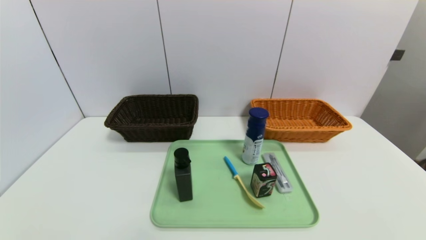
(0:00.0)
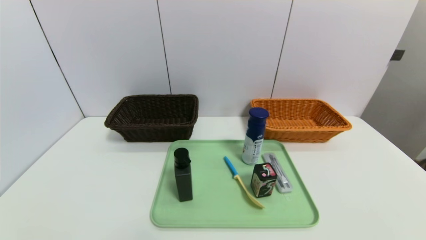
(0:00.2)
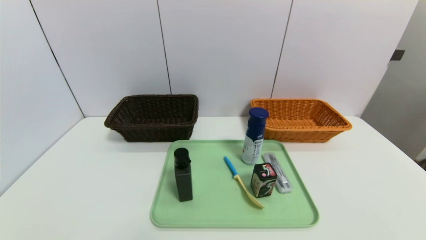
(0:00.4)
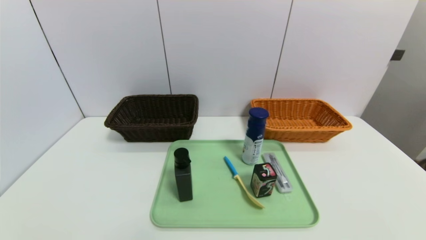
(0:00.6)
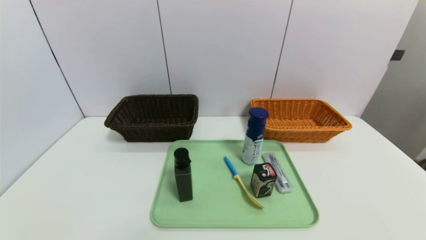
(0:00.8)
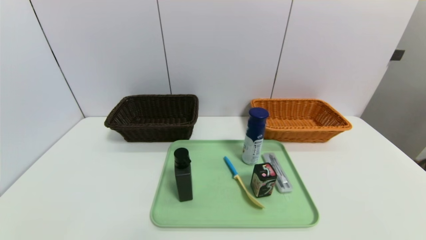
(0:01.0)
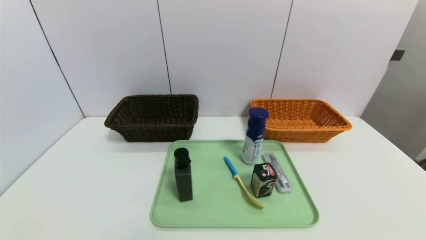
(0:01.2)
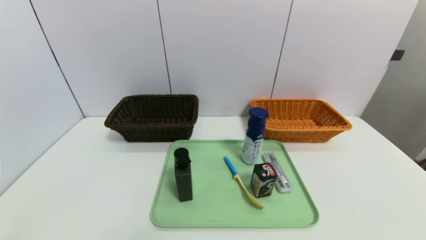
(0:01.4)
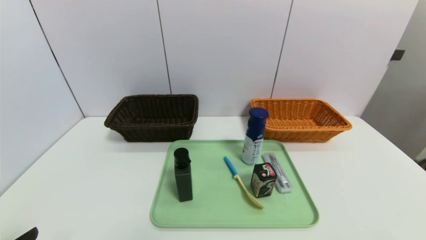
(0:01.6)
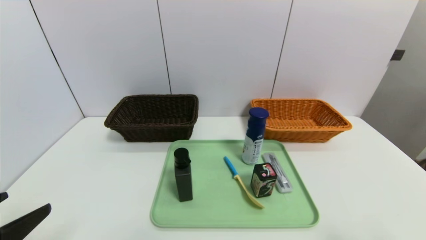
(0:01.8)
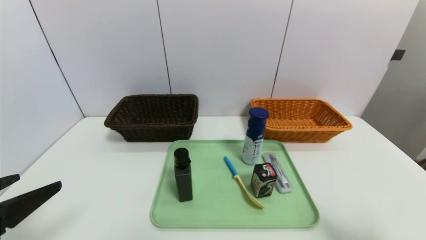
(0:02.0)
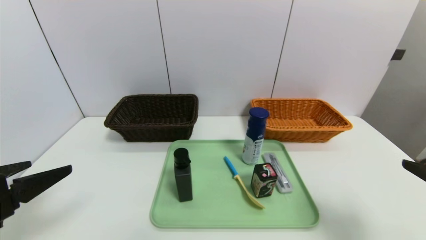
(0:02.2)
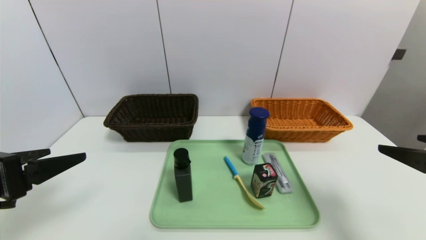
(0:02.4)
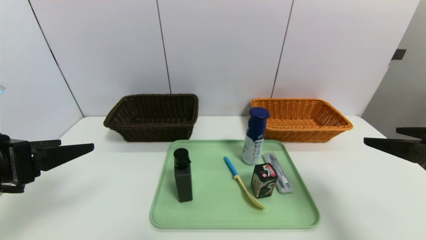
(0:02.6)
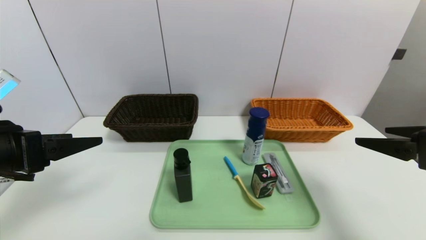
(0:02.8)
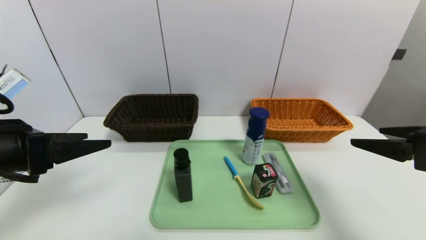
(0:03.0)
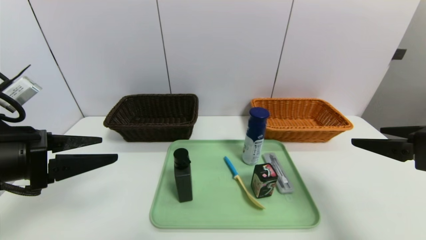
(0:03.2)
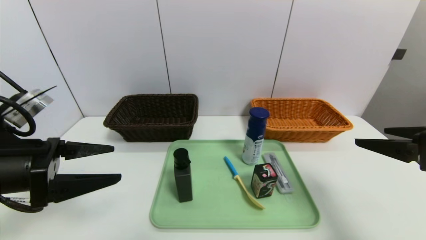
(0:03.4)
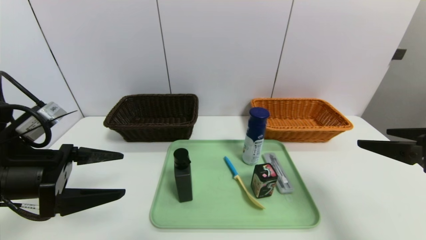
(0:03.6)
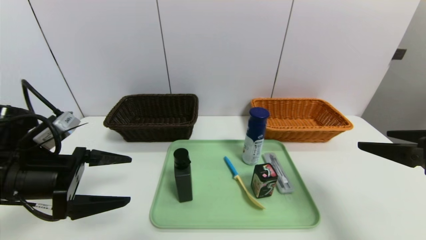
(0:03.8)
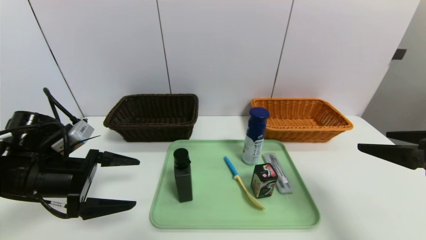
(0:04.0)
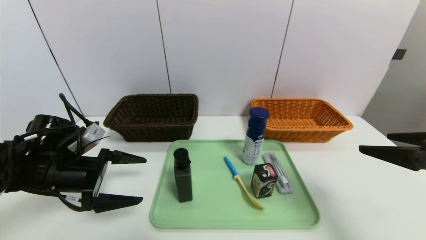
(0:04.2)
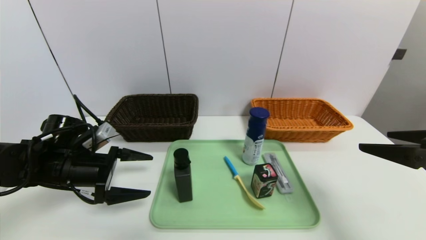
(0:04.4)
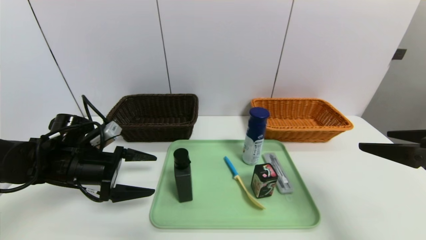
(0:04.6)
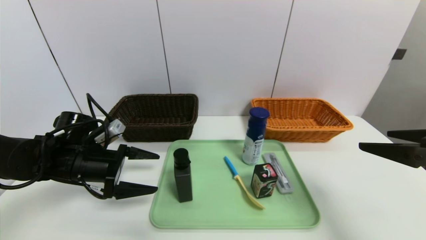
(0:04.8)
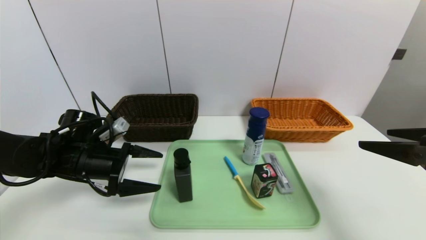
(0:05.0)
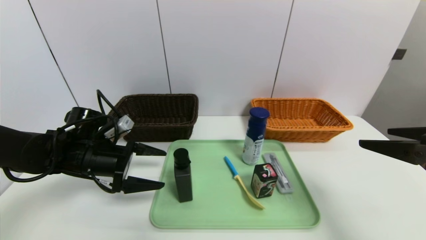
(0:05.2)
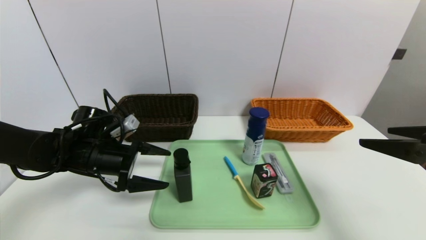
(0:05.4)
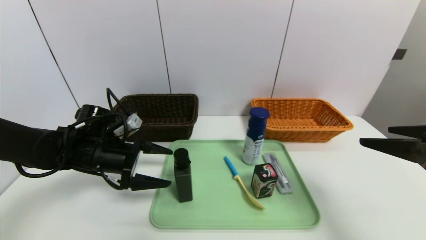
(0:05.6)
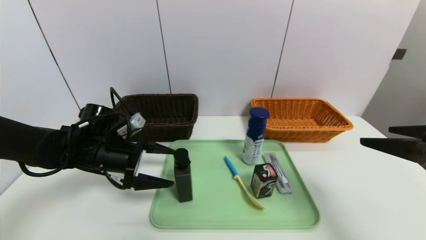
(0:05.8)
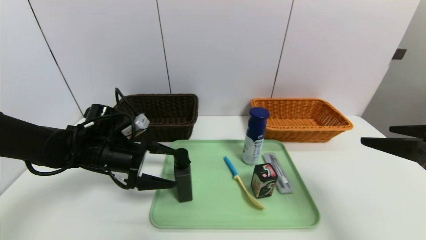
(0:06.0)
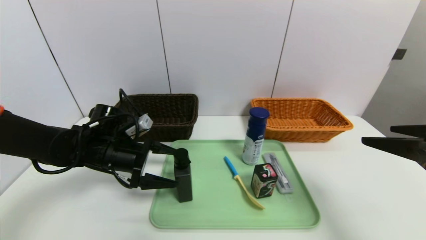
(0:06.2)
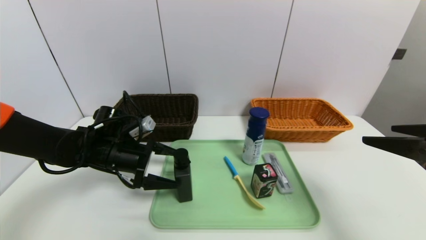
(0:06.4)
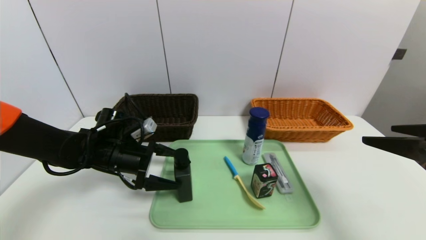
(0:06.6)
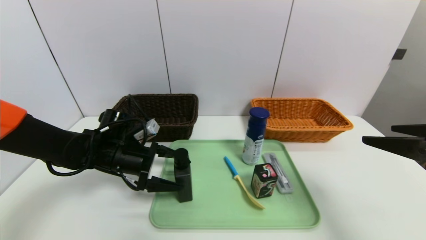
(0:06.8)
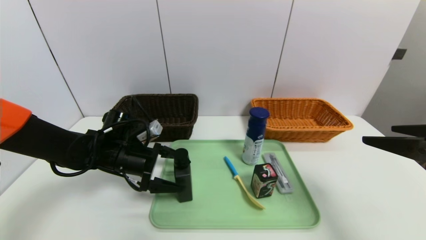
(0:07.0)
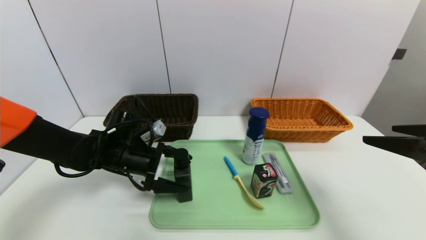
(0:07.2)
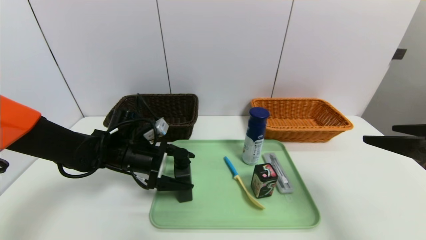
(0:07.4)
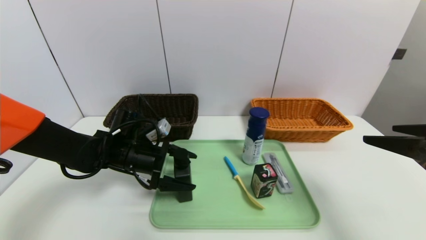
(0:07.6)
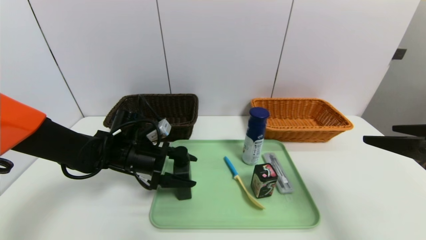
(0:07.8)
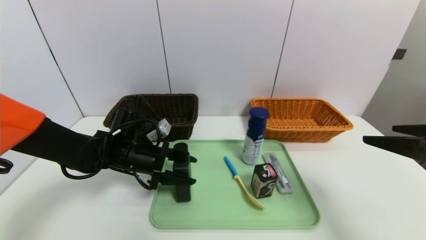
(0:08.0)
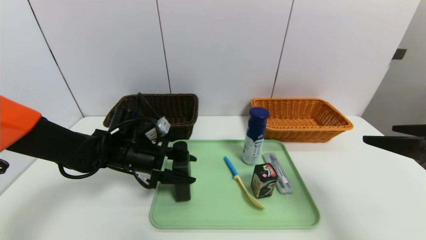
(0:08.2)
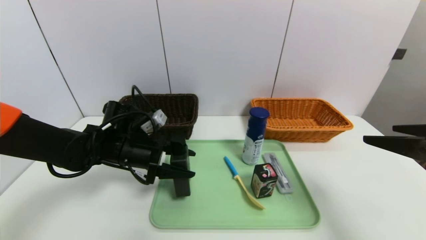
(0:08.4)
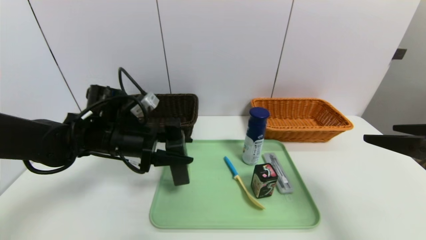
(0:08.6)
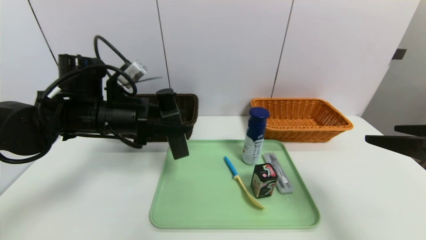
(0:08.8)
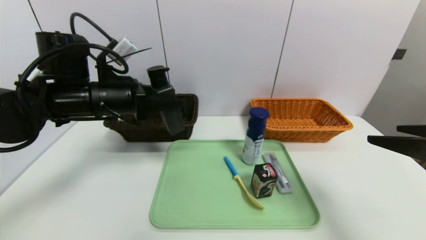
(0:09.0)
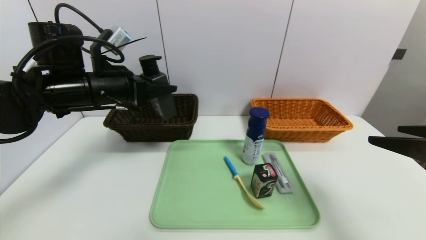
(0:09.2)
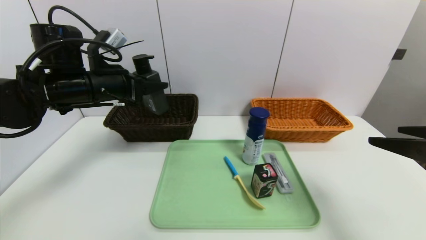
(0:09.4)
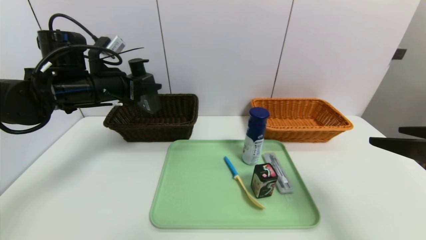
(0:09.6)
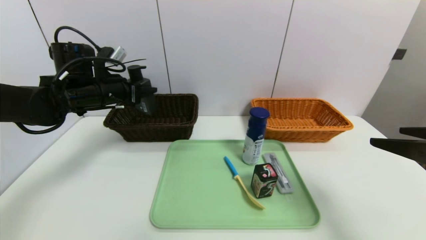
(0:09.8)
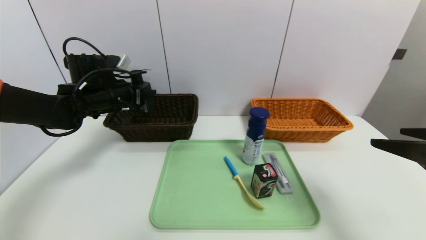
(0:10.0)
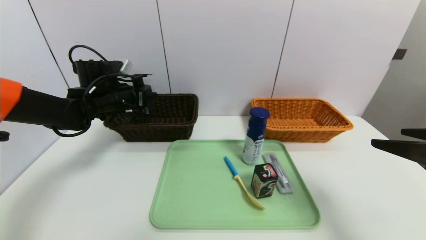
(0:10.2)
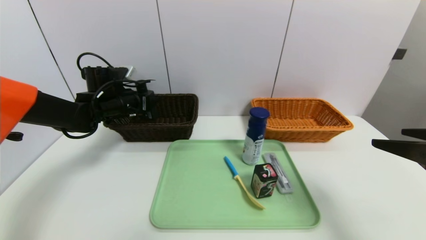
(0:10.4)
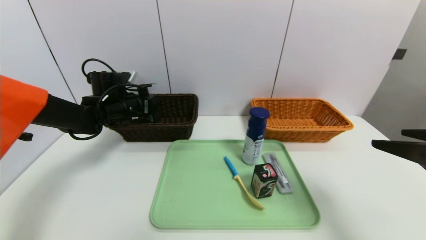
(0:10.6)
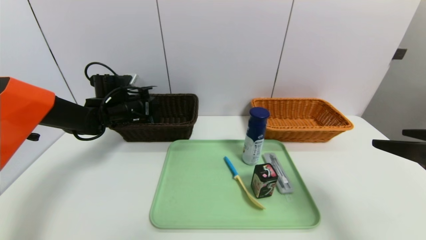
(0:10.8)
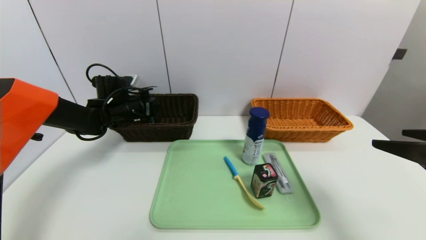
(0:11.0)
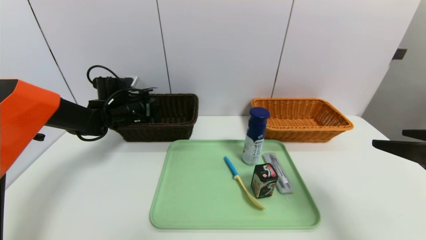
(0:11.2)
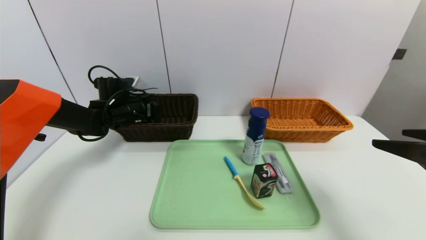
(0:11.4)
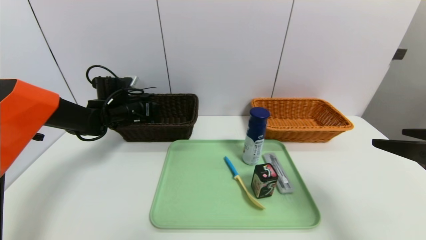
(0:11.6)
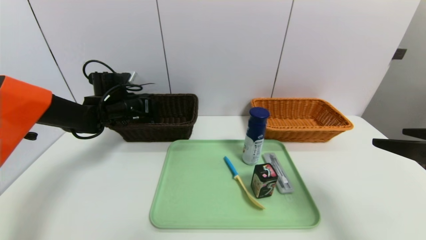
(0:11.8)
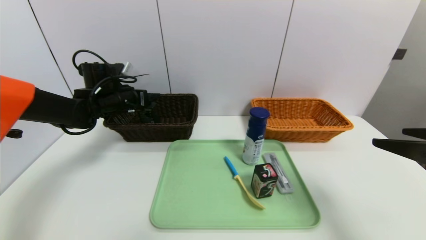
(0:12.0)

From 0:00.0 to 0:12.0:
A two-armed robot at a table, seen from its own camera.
Task of the whole recording: place the food in the right basket with the right gripper, and place the non food items in the left basket with the left gripper.
From 0:01.6 to 0:03.0: The two grippers go approximately 15 cm forward and upward.
From 0:03.0 to 0:04.4: The left gripper moves downward and forward, roughly 15 cm.
From 0:04.4 to 0:06.0: The left gripper is displaced to the right by roughly 5 cm.
From 0:06.0 to 0:07.6: The grippers make only small movements.
From 0:07.6 to 0:09.0: The left gripper is displaced upward by approximately 15 cm, and closes.
From 0:09.0 to 0:10.4: The left gripper travels forward and downward by some 15 cm.
From 0:10.4 to 0:12.0: The grippers move only a little.

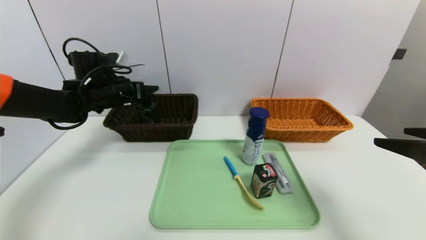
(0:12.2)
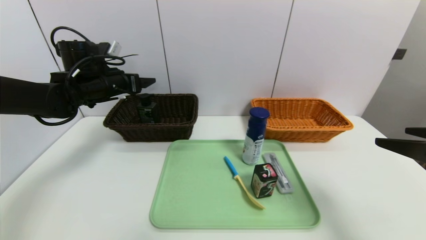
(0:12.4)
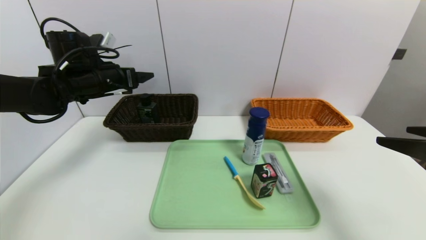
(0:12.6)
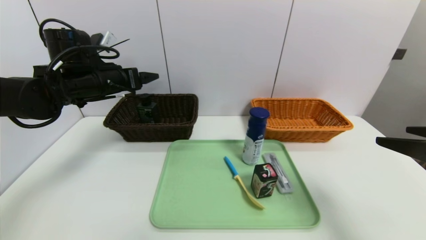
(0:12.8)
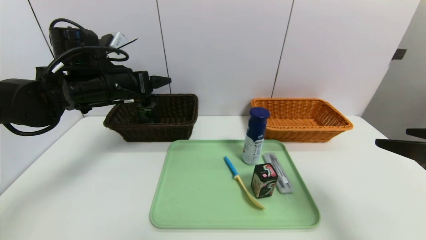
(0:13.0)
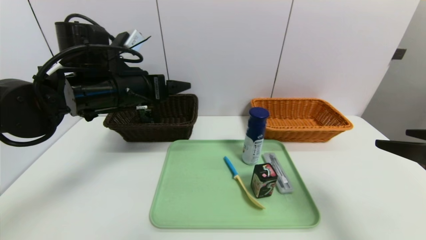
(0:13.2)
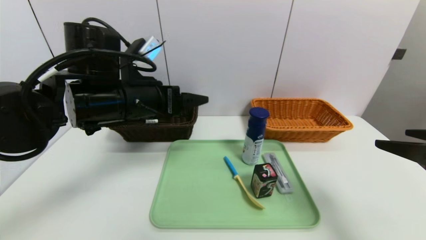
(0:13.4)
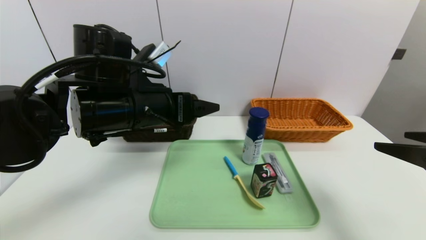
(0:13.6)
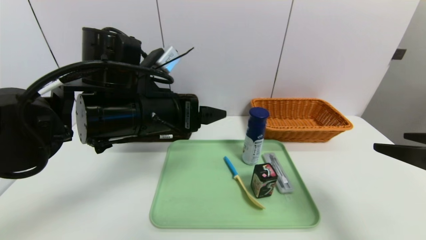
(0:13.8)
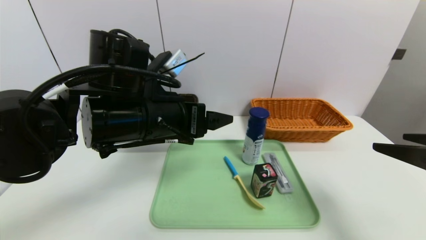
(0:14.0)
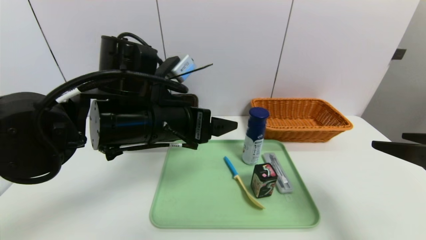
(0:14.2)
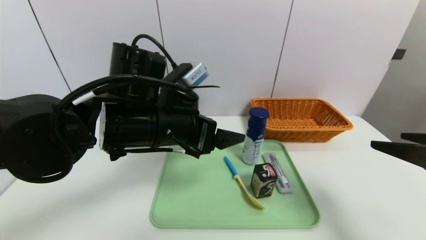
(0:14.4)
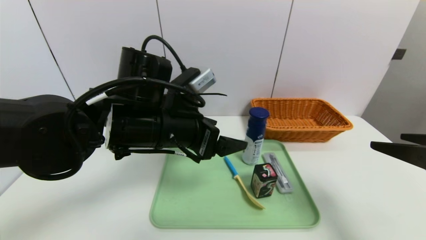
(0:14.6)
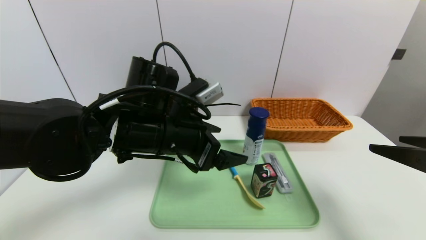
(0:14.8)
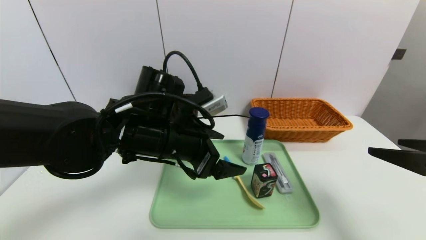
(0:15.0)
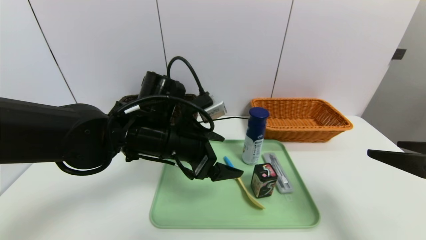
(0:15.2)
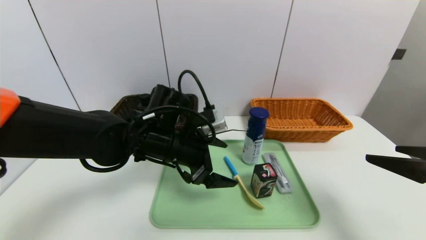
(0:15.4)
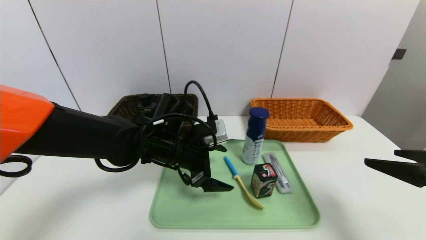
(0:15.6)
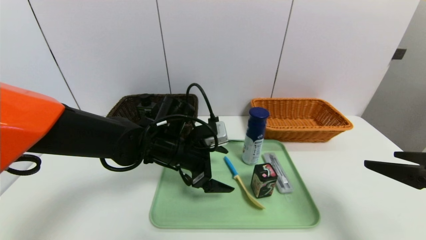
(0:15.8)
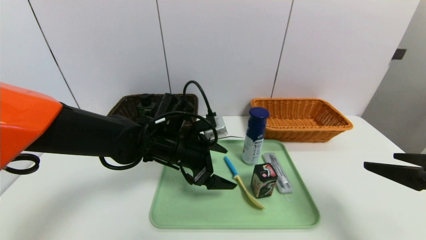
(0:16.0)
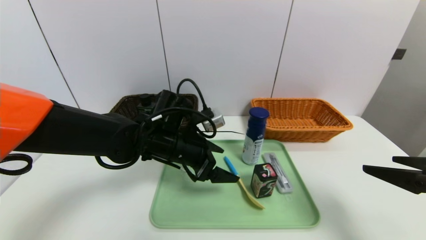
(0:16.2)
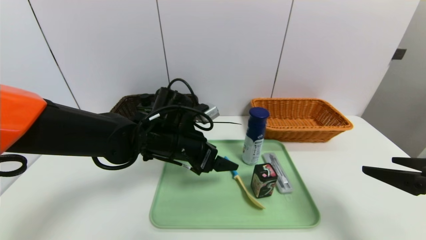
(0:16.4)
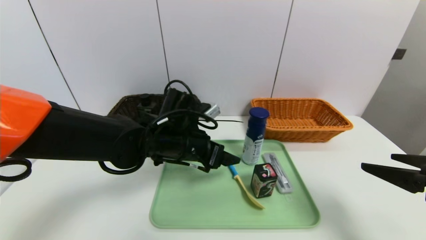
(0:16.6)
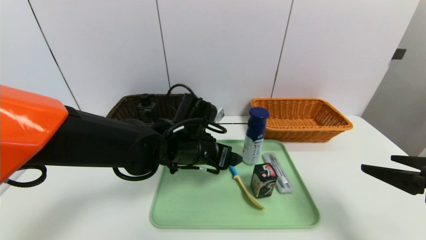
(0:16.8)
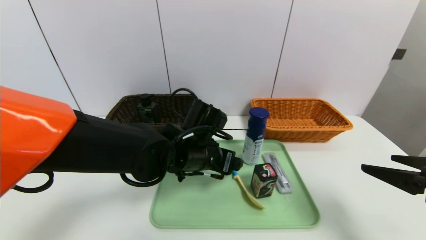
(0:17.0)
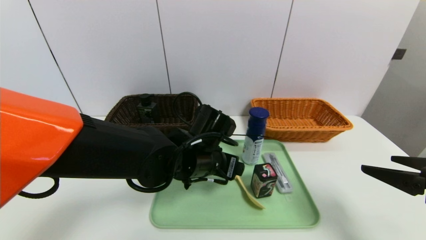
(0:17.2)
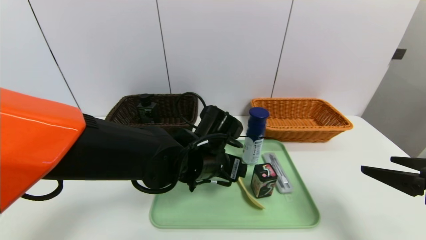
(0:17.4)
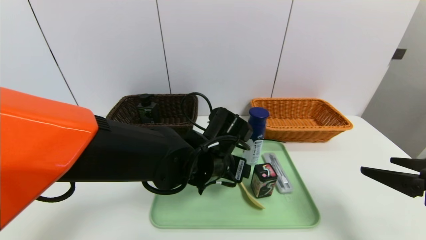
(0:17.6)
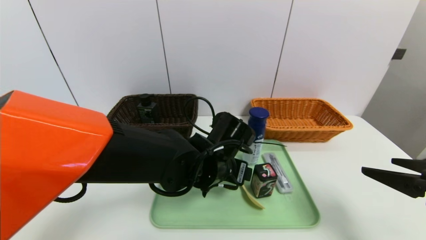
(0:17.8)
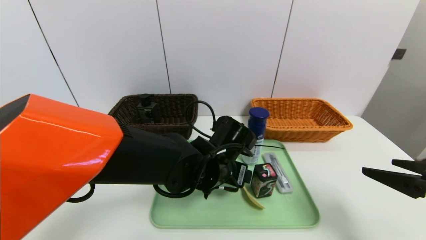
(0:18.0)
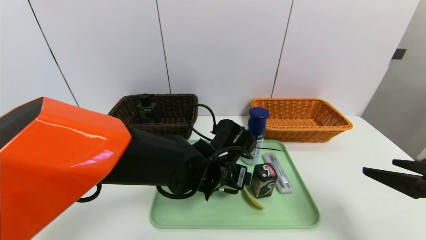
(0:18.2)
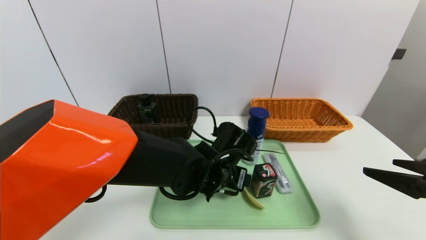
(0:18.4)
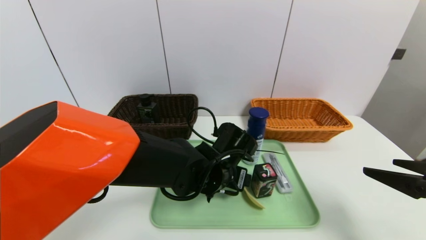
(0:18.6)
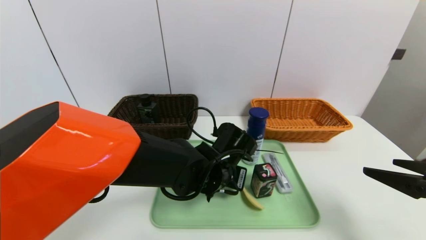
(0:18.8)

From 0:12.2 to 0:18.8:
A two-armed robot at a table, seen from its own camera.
Task of the whole recording: place the food in the right basket with the right gripper, and place the non food items in the left basket with the left gripper.
From 0:12.2 to 0:13.8: The left gripper moves backward and to the right, some 20 cm.
From 0:13.8 to 0:15.4: The left gripper goes about 10 cm downward.
From 0:15.4 to 0:17.2: The left gripper is displaced to the right by roughly 5 cm.
From 0:17.2 to 0:18.8: The left gripper moves some 5 cm.
